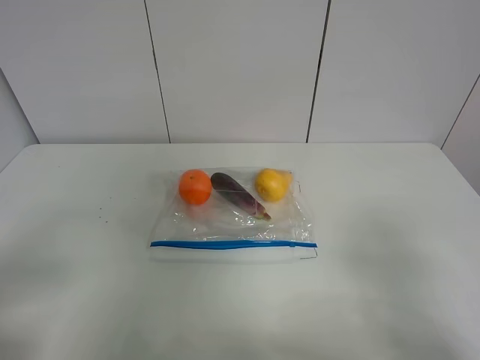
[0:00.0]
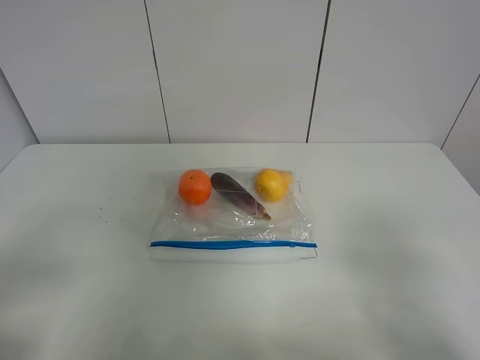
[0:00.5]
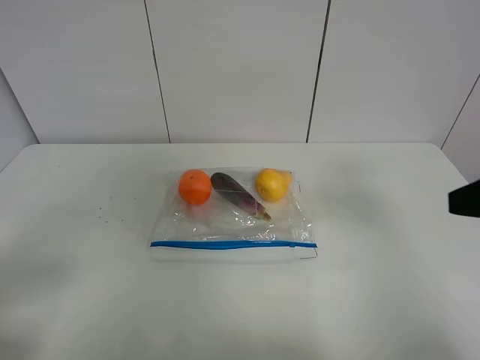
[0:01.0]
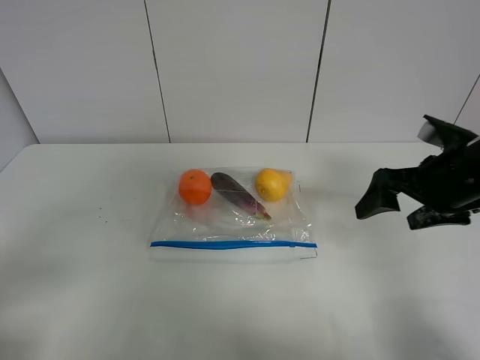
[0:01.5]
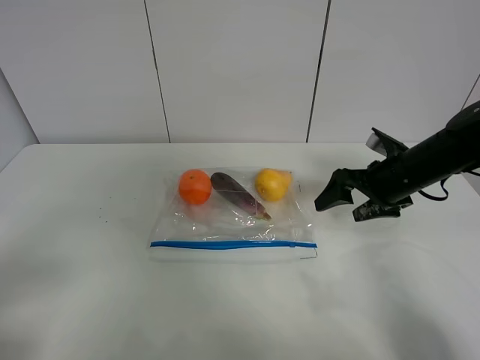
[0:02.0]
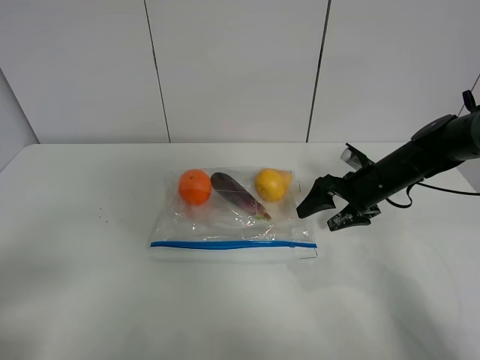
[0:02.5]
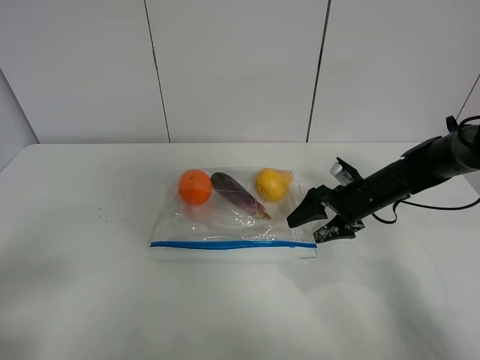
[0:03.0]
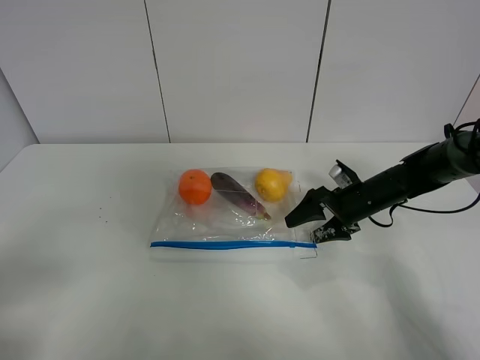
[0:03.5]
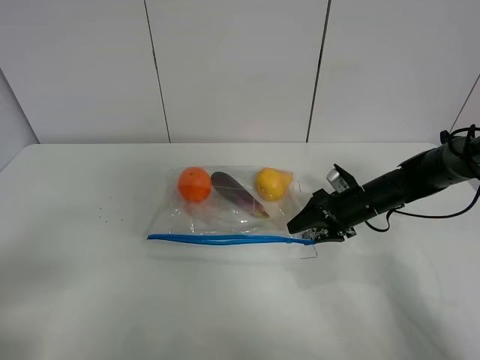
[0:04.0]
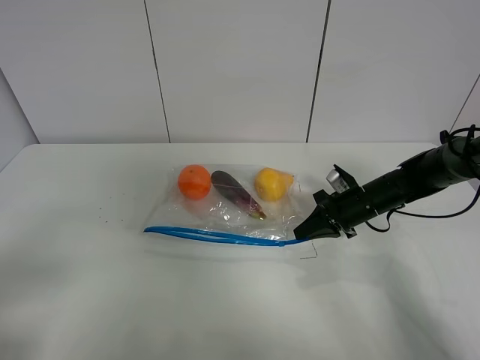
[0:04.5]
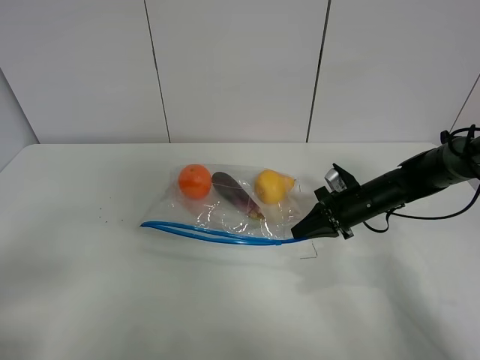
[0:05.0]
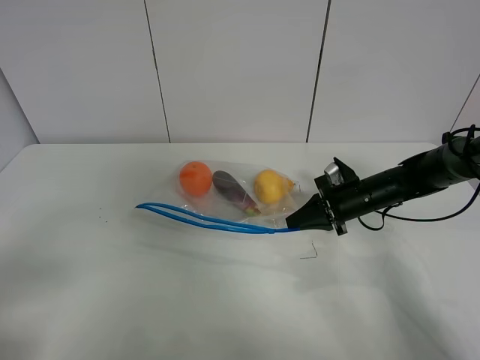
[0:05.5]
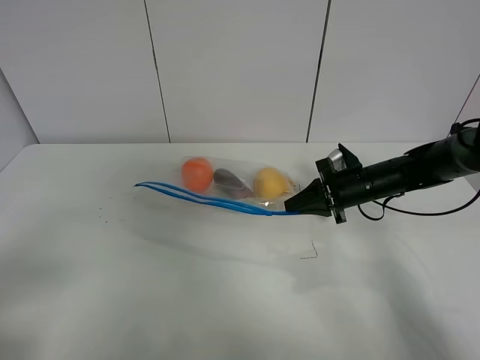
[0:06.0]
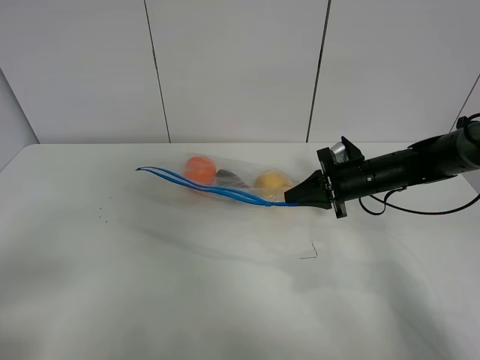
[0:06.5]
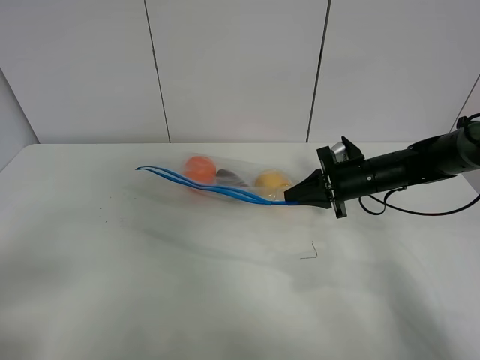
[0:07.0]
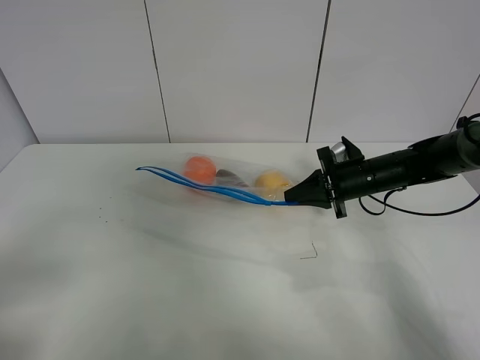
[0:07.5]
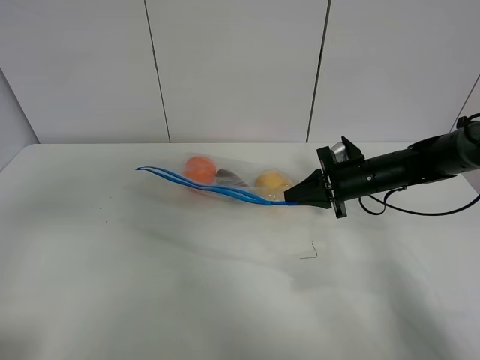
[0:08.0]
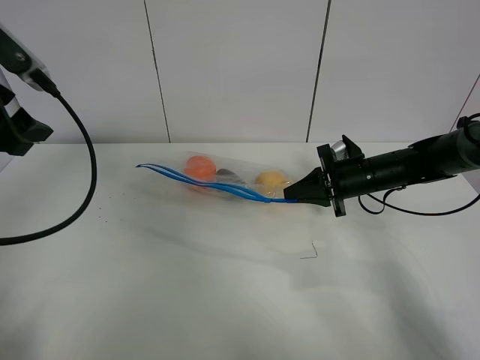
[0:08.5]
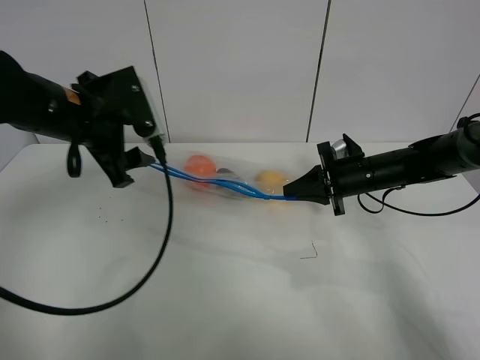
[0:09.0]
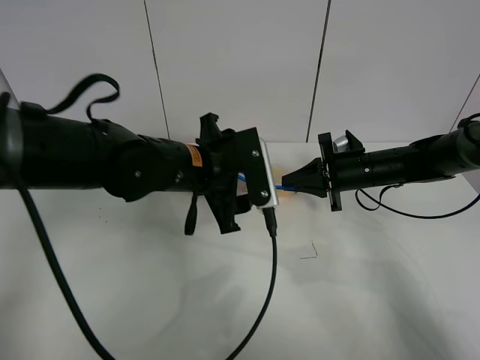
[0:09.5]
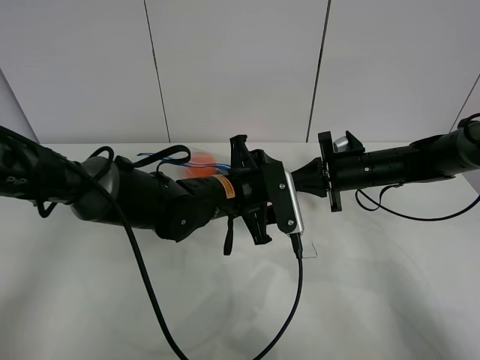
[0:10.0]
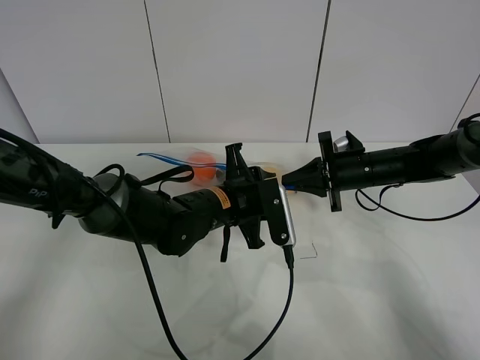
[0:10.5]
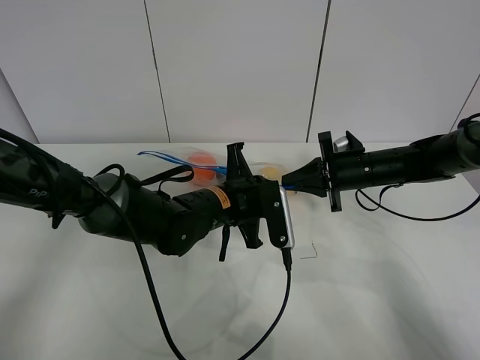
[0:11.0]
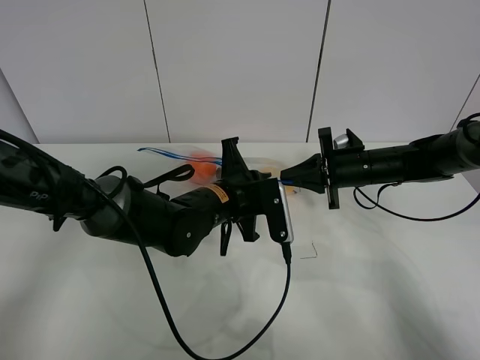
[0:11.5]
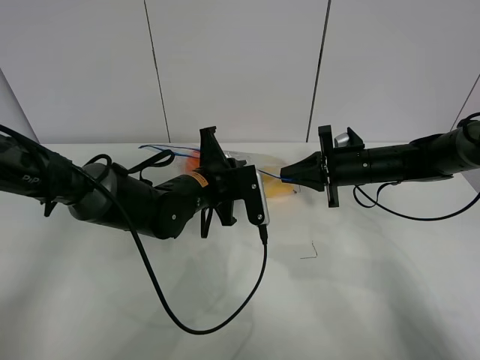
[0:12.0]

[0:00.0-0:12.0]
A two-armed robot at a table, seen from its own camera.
Step, 0:00.0 to 0:04.0: Grasp the fruit bag with right gripper.
Step, 0:04.5 to 0:06.0: Lift the fruit bag with your right gripper.
0:00.0 to 0:02.0: The right gripper goes roughly 35 cm forward.
0:02.0 to 0:04.0: The right gripper goes some 10 cm downward, and closes its fingers.
0:04.0 to 0:06.0: The right gripper closes.
0:06.0 to 0:08.0: The left gripper is displaced upward and forward by some 15 cm.
0:08.0 to 0:10.0: The left gripper shifts roughly 40 cm to the right, forward and downward.
0:10.0 to 0:12.0: The left gripper moves to the left, about 5 cm, and closes.

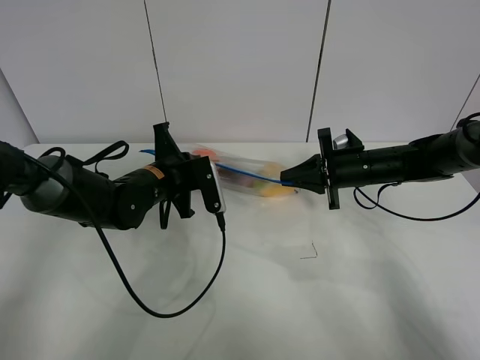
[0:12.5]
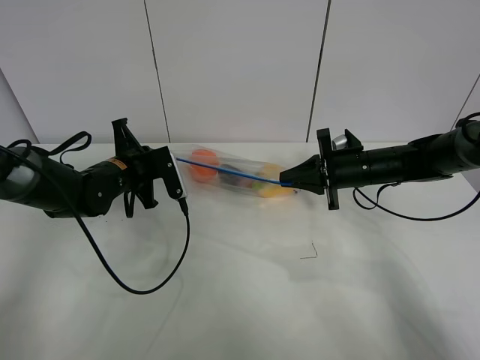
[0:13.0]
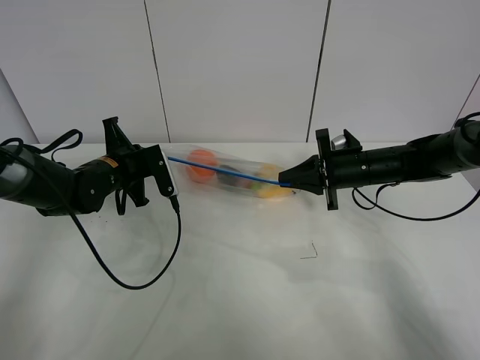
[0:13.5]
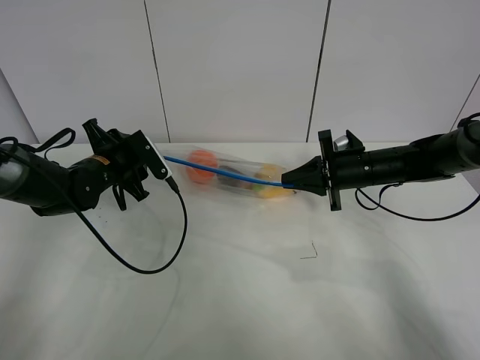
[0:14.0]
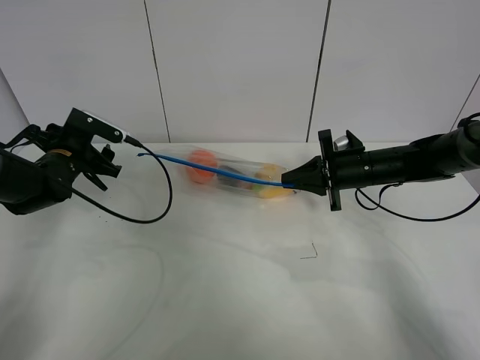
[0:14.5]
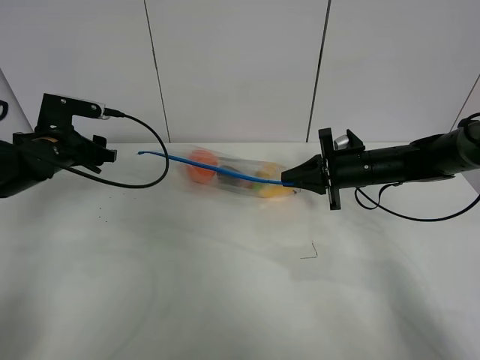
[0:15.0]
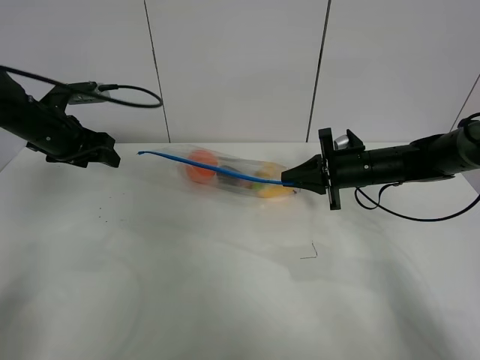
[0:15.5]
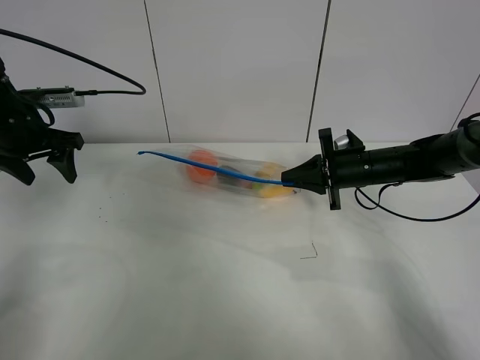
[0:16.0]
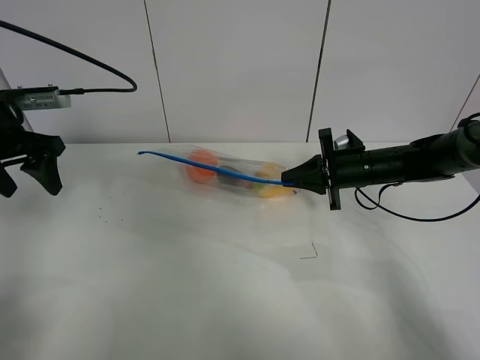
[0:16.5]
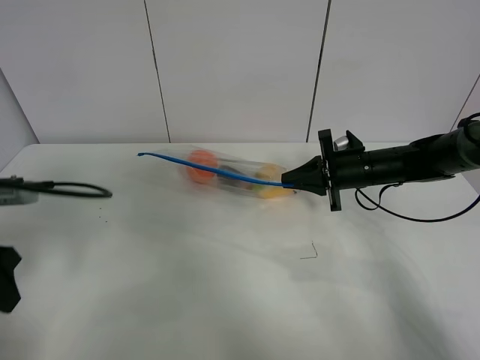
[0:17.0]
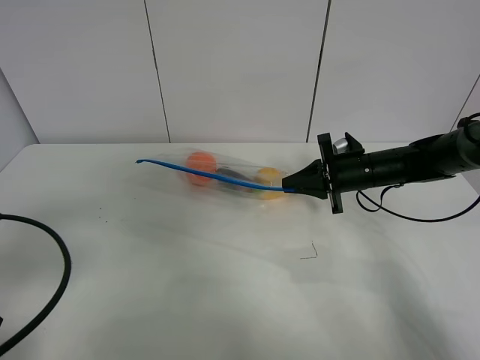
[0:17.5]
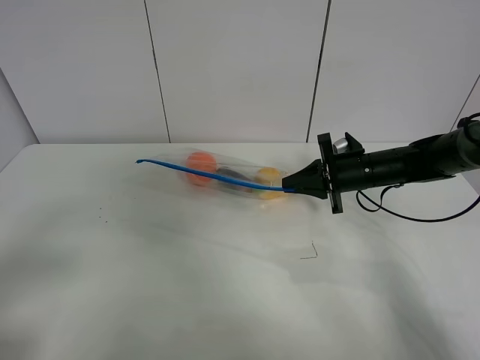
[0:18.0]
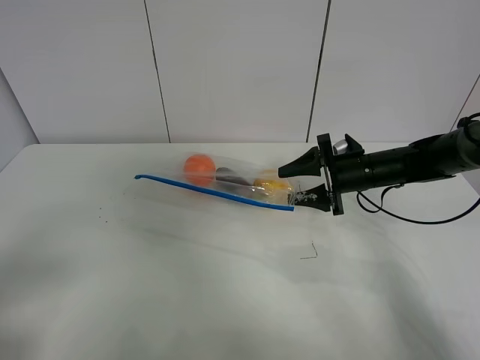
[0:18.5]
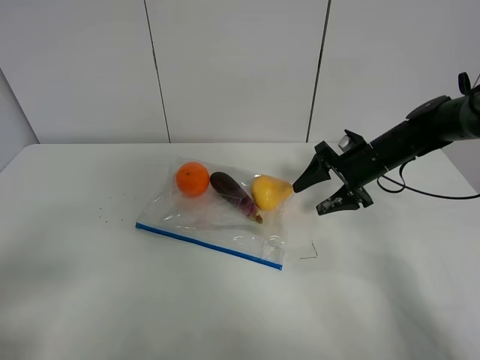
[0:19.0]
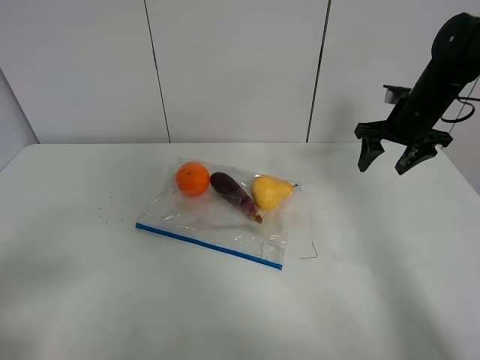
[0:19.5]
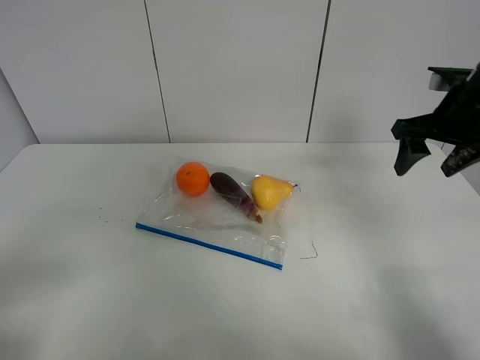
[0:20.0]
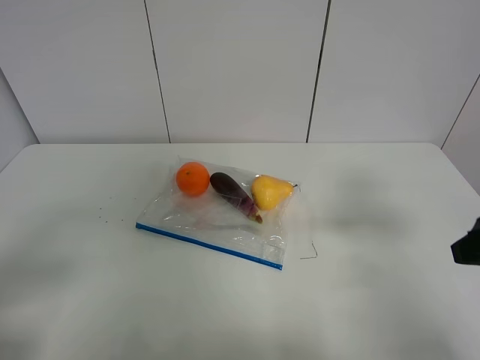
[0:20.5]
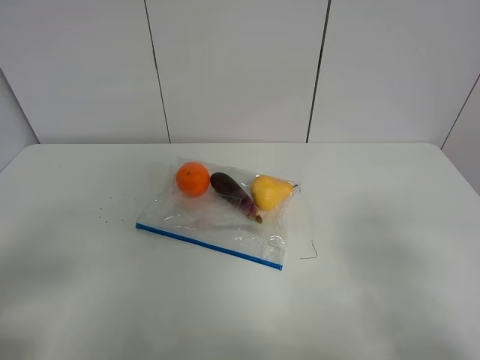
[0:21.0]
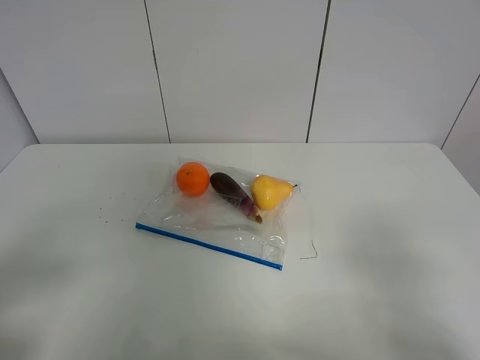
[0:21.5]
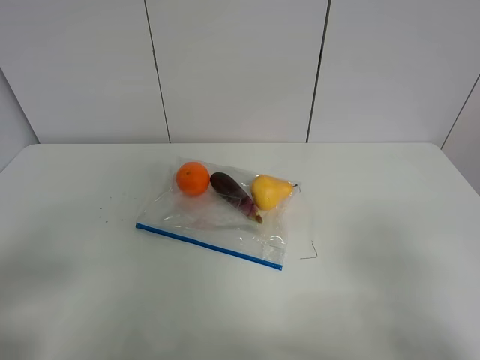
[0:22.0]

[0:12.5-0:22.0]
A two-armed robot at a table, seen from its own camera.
0:12.5 to 0:14.5: The left gripper shifts roughly 15 cm to the left, and opens its fingers.
0:14.5 to 0:16.5: The left gripper shifts approximately 15 cm upward and backward.
0:16.5 to 0:18.0: The left gripper heads backward, covering about 30 cm.
0:18.0 to 0:20.0: The right gripper is displaced upward and to the right by about 15 cm, and opens.
0:20.0 to 0:22.0: The right gripper moves backward, about 35 cm.

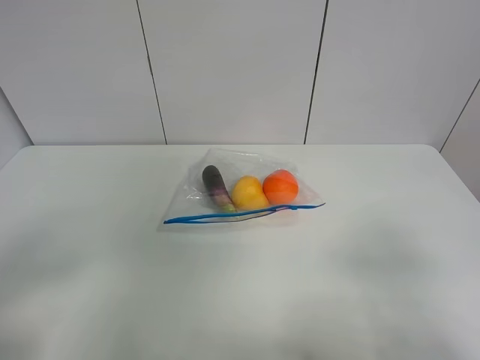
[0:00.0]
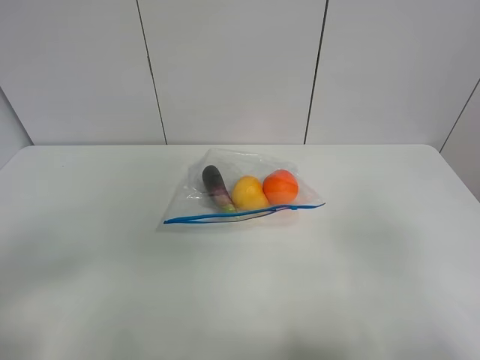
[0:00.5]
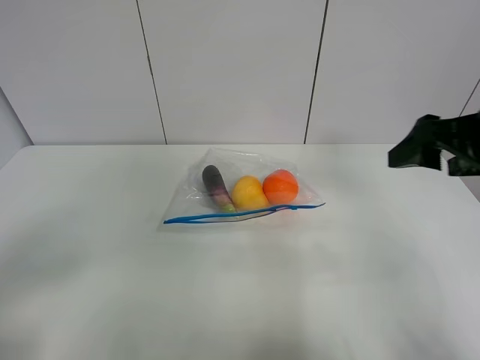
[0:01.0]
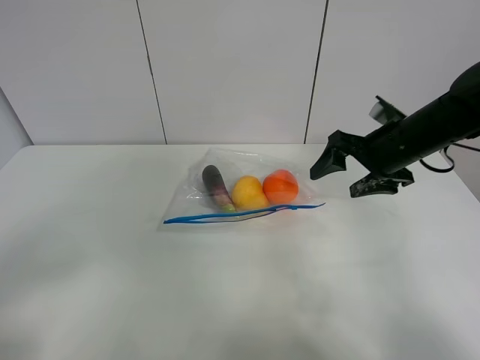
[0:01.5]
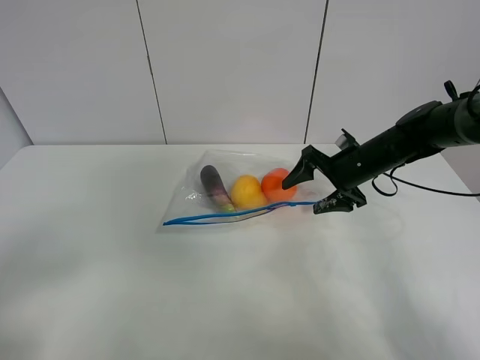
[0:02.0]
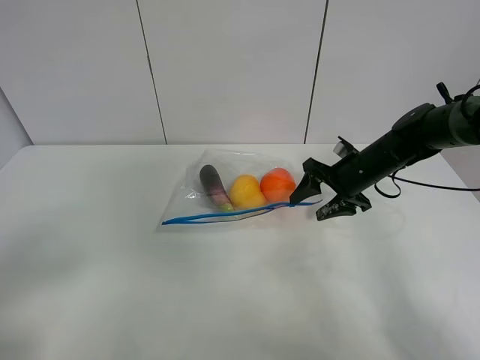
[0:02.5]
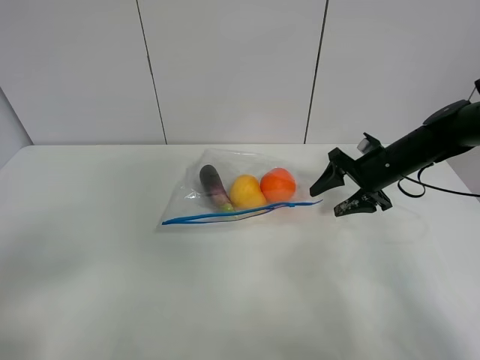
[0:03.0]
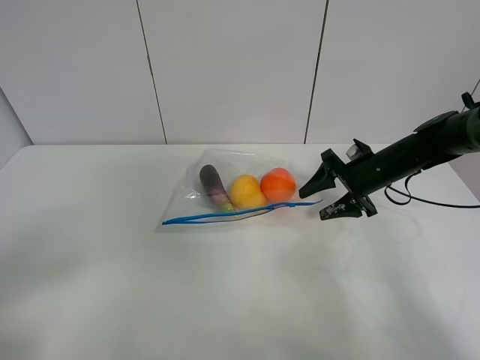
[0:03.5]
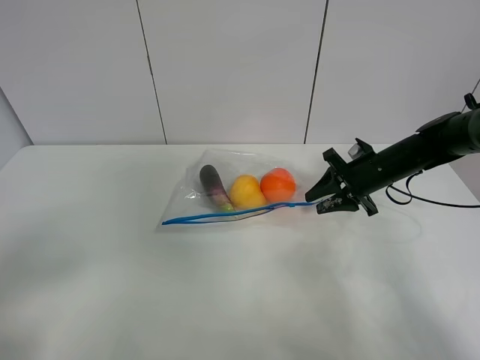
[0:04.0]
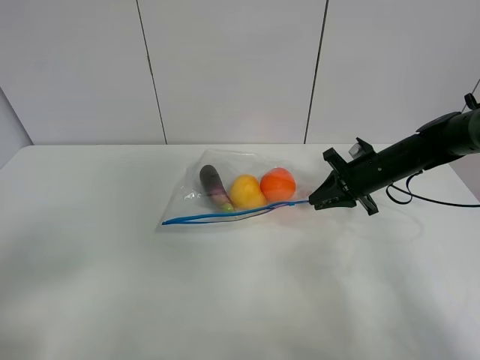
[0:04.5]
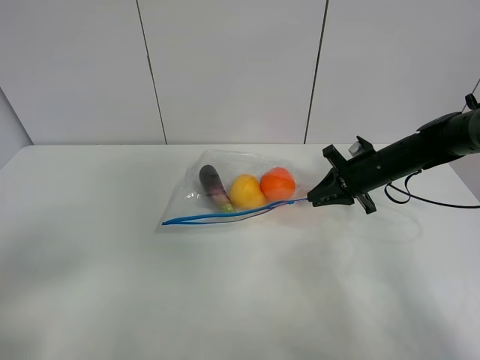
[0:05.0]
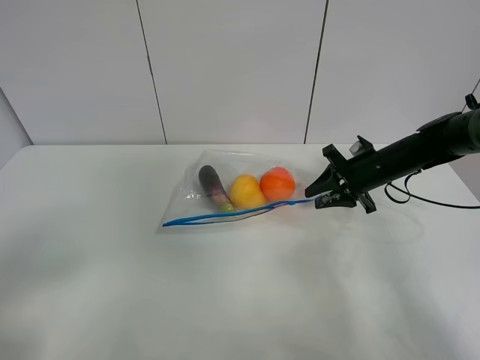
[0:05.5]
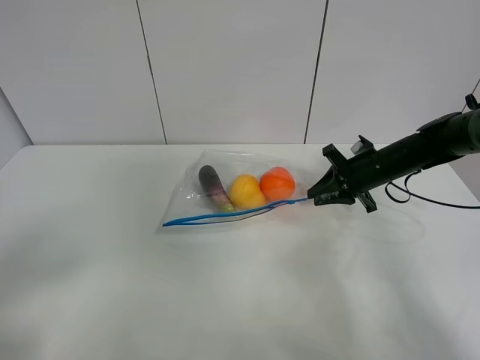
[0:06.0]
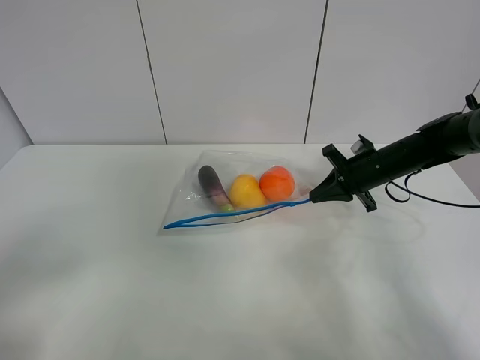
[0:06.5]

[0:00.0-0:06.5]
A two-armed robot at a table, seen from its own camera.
Step, 0:00.0 to 0:06.0: Grasp the fruit bag with right gripper.
0:00.0 to 0:02.0: The right gripper moves forward, some 40 cm.
0:02.0 to 0:04.5: The right gripper closes.
0:04.5 to 0:06.5: Neither gripper changes place.
